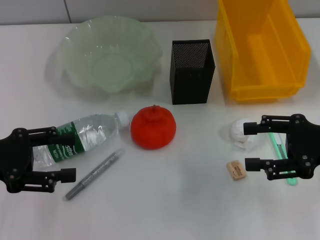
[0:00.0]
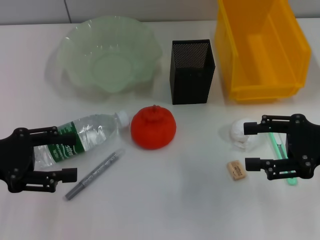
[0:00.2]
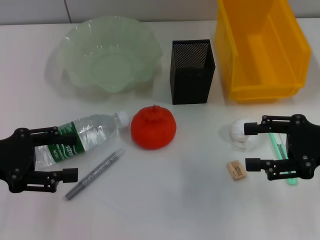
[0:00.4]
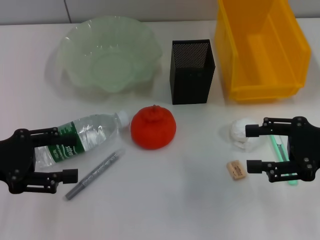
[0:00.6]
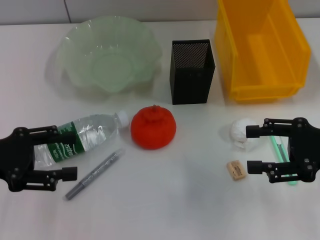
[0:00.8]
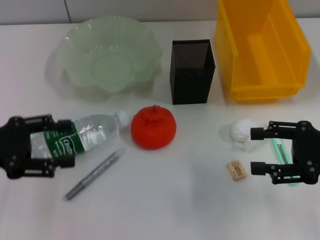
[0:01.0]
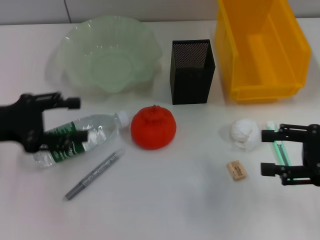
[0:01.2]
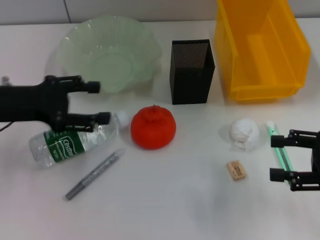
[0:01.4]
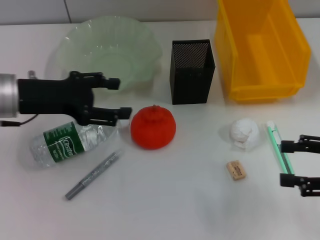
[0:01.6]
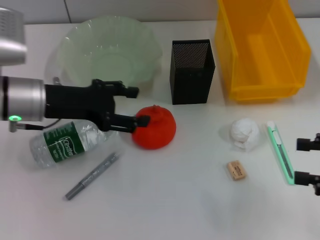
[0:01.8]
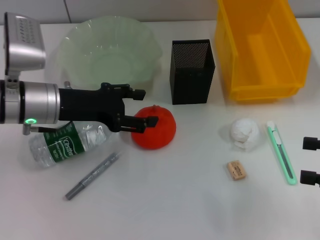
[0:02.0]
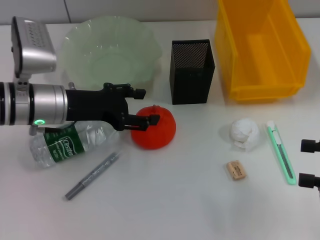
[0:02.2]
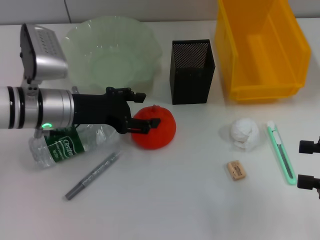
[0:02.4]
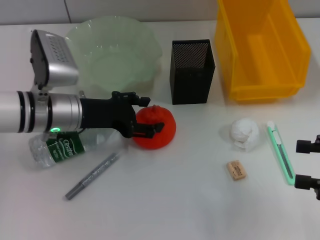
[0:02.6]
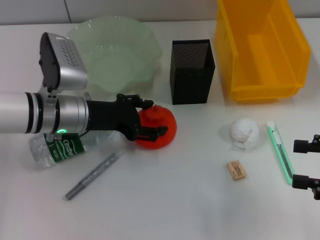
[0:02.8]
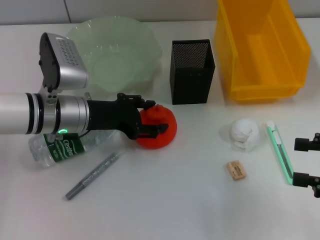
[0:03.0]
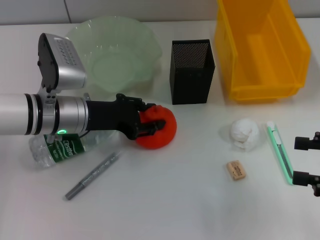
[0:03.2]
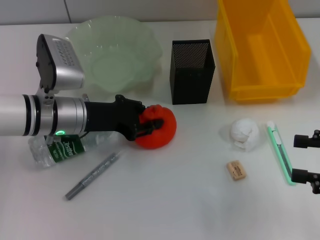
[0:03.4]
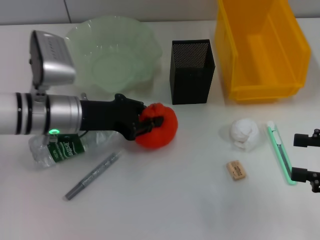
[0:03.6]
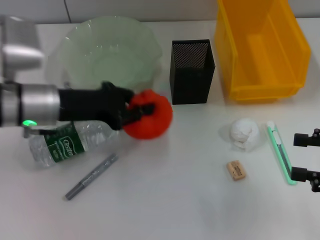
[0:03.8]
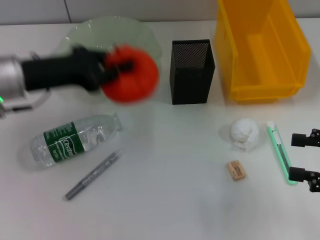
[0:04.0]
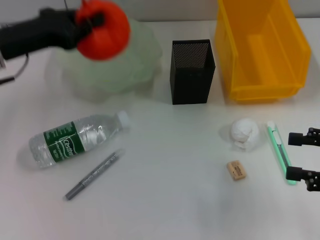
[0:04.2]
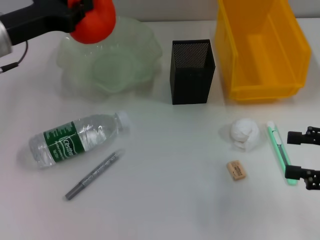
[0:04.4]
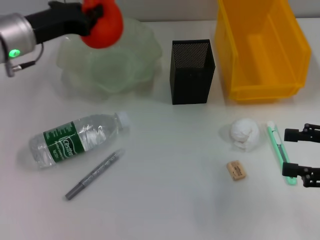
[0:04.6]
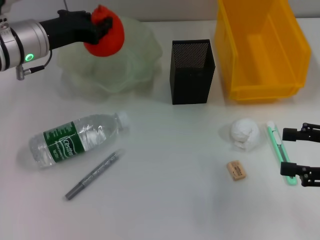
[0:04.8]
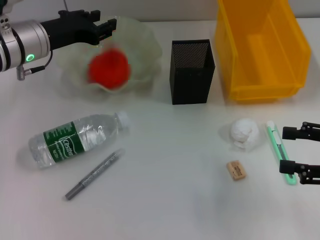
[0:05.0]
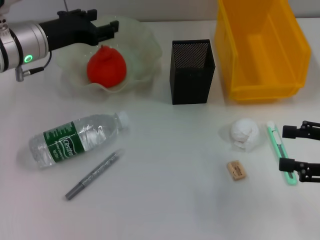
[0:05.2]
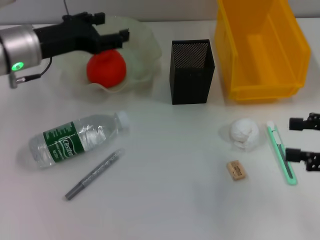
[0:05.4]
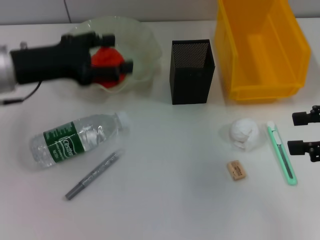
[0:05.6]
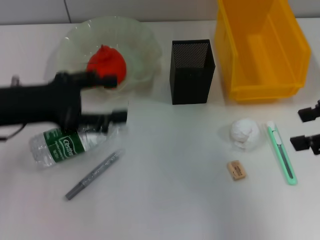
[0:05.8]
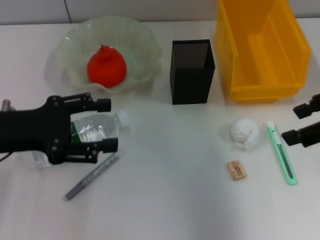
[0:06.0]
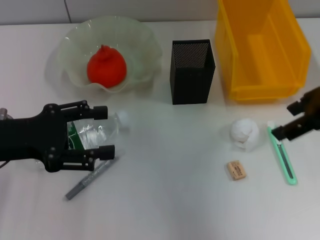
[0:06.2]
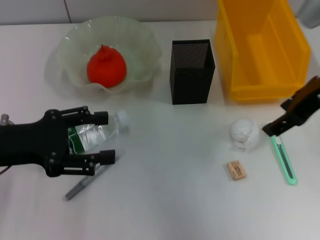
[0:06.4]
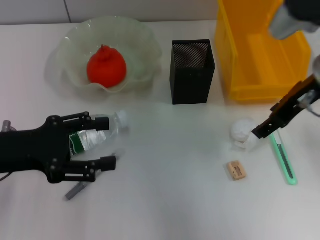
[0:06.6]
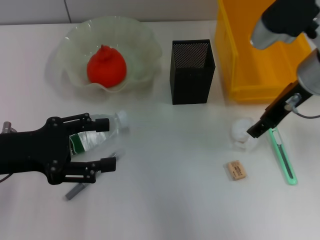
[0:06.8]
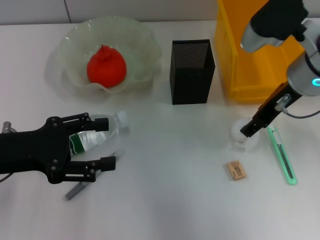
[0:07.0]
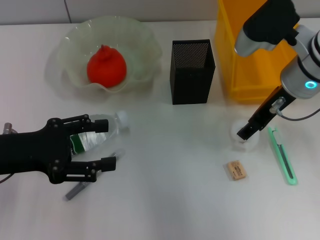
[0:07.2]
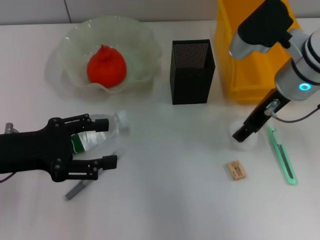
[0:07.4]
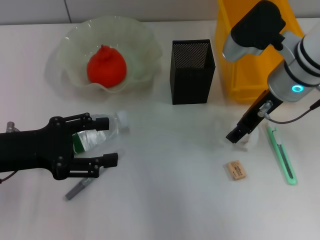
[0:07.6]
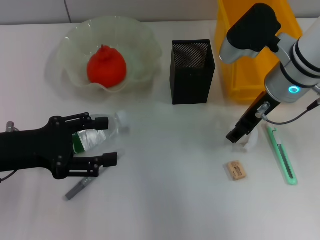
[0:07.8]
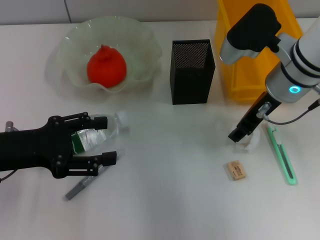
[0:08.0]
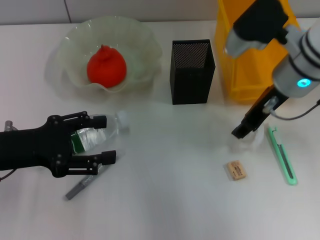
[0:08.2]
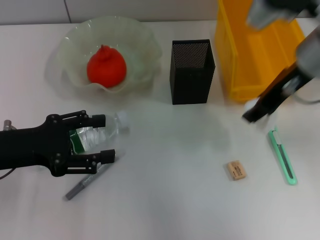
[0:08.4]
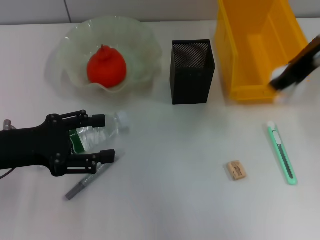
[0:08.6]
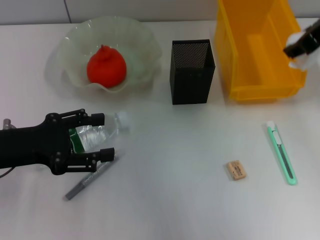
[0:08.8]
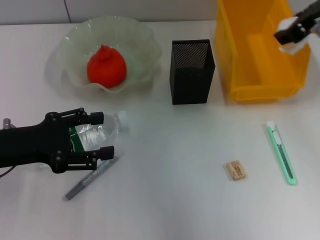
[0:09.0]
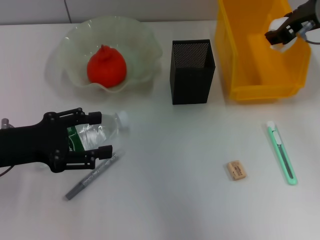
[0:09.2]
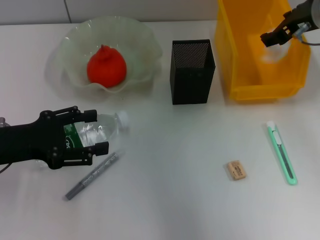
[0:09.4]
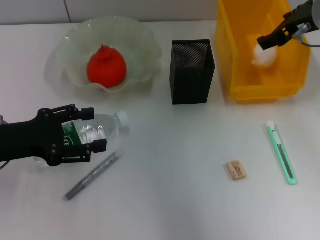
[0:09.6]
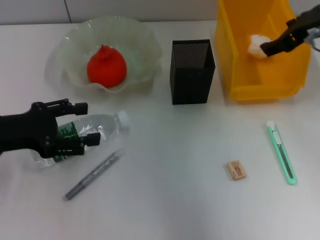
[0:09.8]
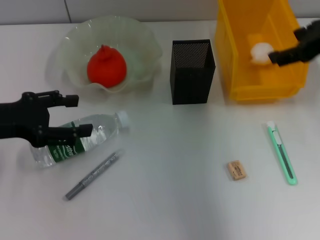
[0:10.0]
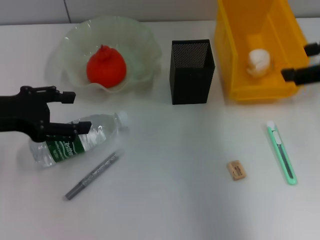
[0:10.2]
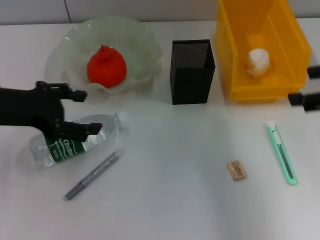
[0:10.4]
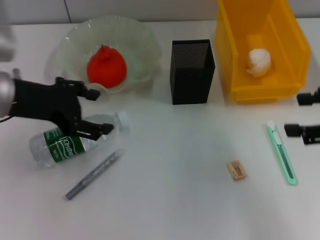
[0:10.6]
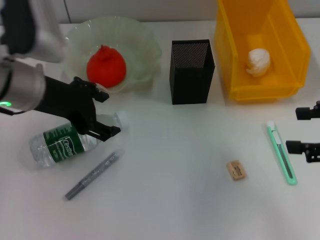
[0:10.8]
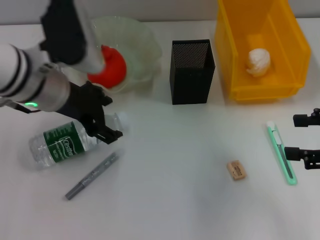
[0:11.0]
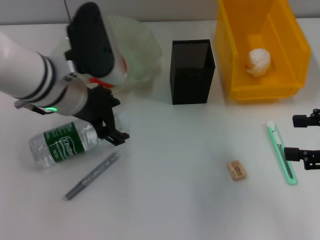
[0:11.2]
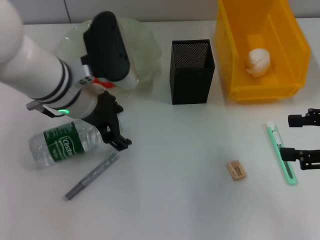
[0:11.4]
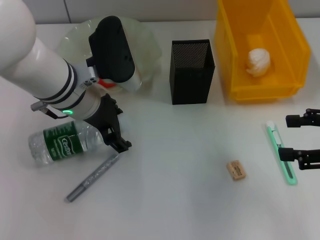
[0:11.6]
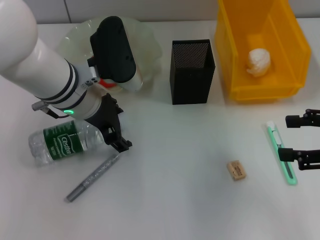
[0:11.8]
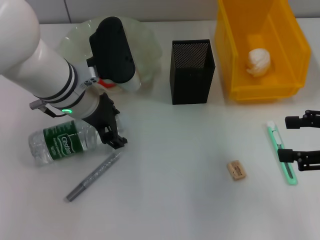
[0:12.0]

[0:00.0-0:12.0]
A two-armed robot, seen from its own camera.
Step, 0.0 to 3.4 s: Grab the orange with the left hand.
Step, 3.6 to 5.2 s: Place the orange into the fruit bowl with the left hand.
Step, 5.4 to 7.8 s: Grab the paper ball with the right hand.
Step, 8.0 to 9.8 s: Place the paper ball into the trash can with the right hand.
0.0 to 1.6 s: The right gripper ends up about 5 cm from where it was. The left gripper is displaced forward and to the right by approximately 10 cm.
1.6 to 3.0 s: The left gripper heads to the right and downward, covering about 10 cm.
3.0 to 4.4 s: The left gripper is displaced upward and to the left by approximately 10 cm, and closes.
4.4 to 6.0 s: The left gripper goes some 10 cm backward, and opens up; the right gripper is displaced upward, to the left and forward by roughly 15 cm.
6.0 to 7.6 s: The right gripper travels to the left, downward and forward by about 15 cm.
7.6 to 9.0 s: The right gripper goes approximately 10 cm upward and to the right.
9.0 to 10.4 s: The left gripper travels upward by about 5 cm. The right gripper heads backward and to the right, covering some 15 cm, and opens its fingers.
10.4 to 12.0 s: The right gripper is displaced downward by roughly 5 cm, while the left gripper heads to the right and forward, covering roughly 15 cm.

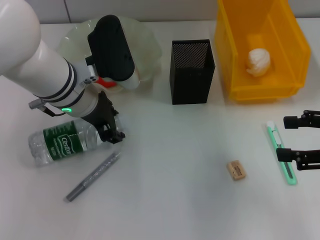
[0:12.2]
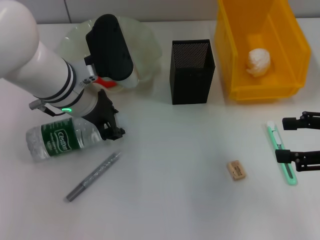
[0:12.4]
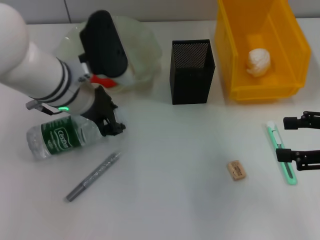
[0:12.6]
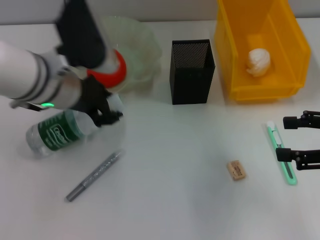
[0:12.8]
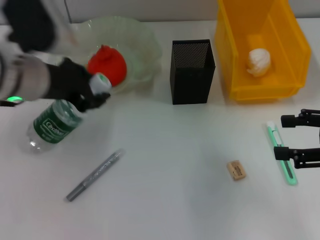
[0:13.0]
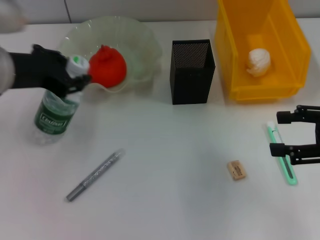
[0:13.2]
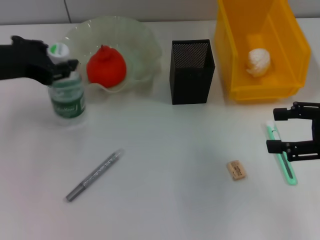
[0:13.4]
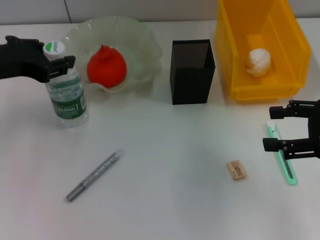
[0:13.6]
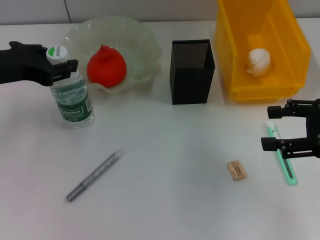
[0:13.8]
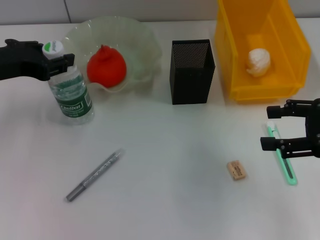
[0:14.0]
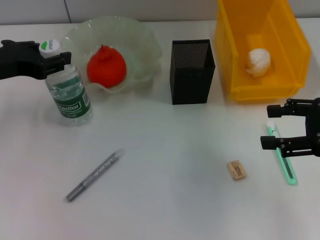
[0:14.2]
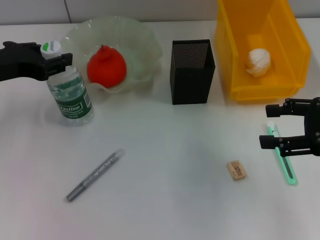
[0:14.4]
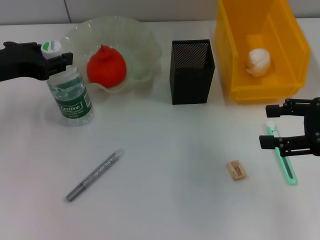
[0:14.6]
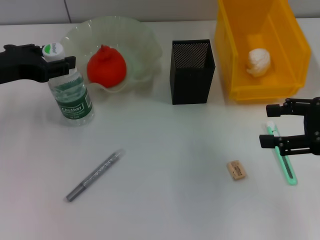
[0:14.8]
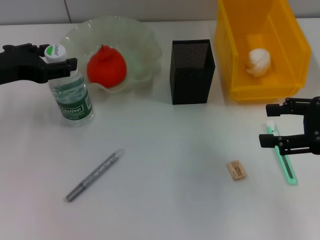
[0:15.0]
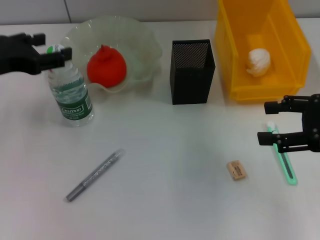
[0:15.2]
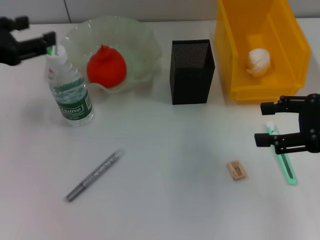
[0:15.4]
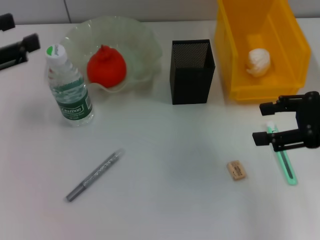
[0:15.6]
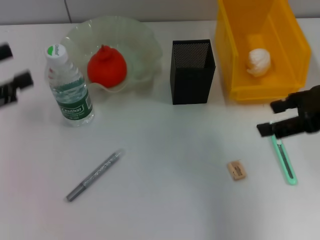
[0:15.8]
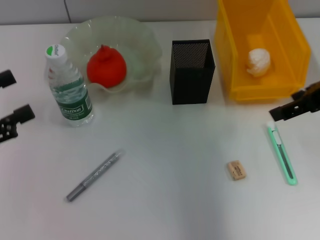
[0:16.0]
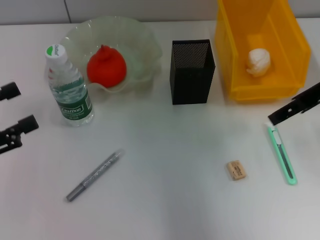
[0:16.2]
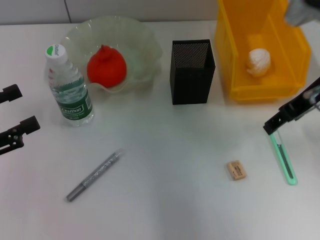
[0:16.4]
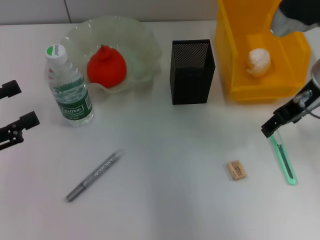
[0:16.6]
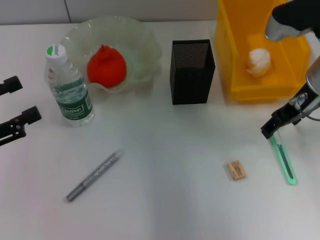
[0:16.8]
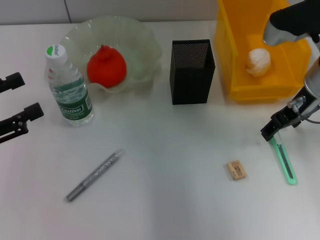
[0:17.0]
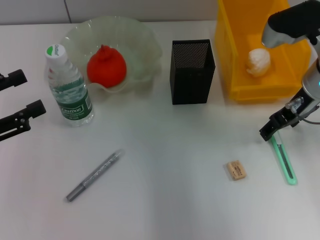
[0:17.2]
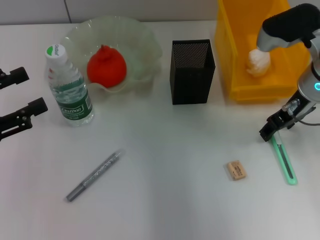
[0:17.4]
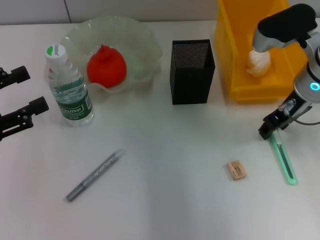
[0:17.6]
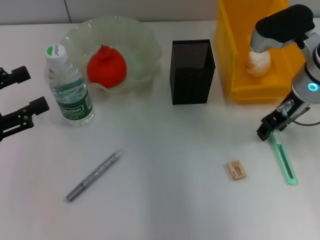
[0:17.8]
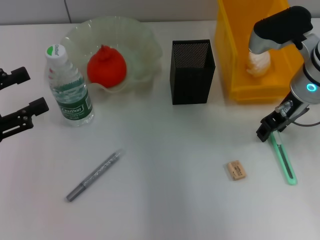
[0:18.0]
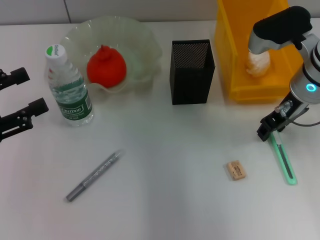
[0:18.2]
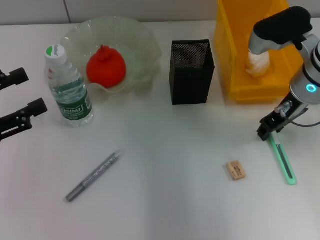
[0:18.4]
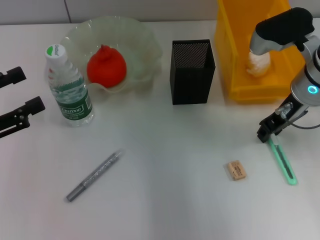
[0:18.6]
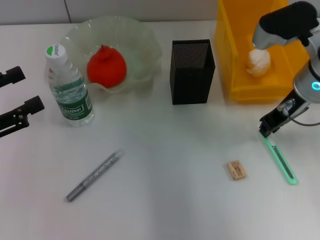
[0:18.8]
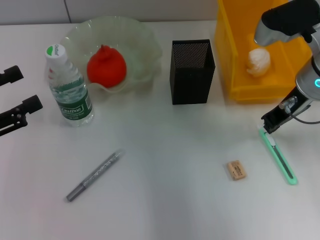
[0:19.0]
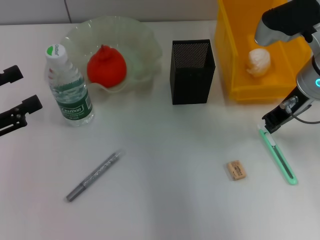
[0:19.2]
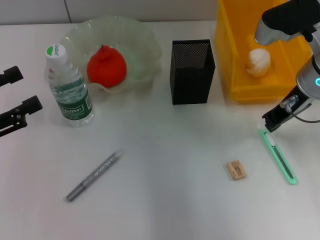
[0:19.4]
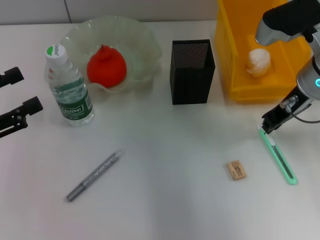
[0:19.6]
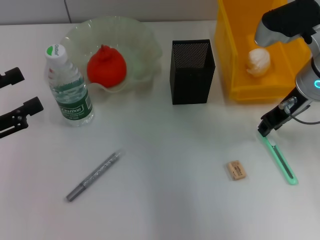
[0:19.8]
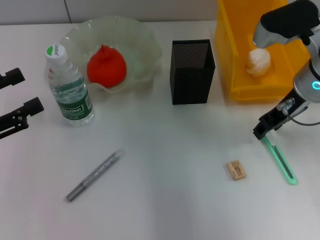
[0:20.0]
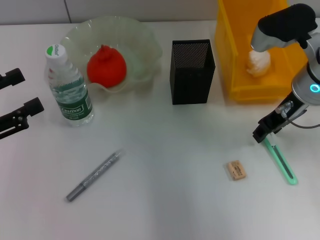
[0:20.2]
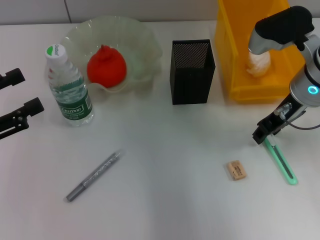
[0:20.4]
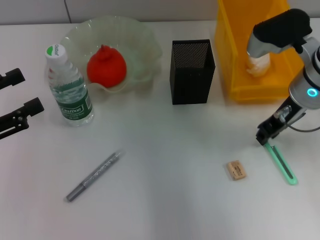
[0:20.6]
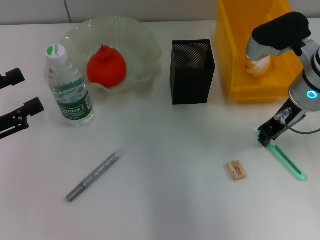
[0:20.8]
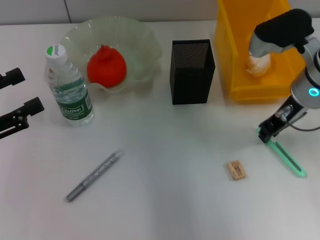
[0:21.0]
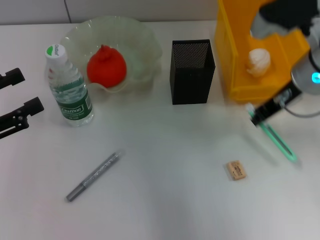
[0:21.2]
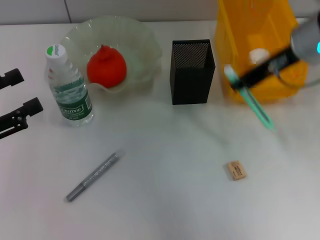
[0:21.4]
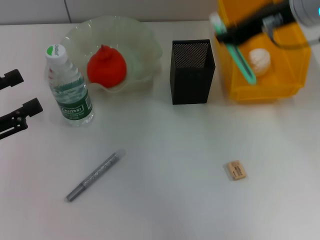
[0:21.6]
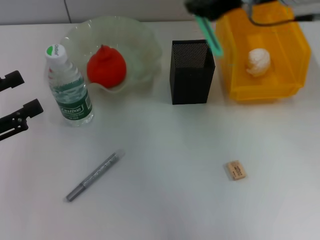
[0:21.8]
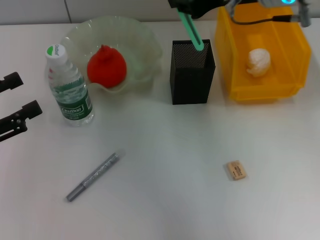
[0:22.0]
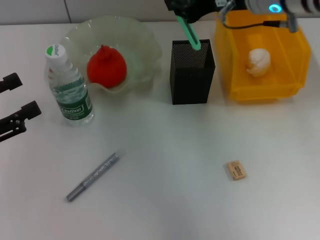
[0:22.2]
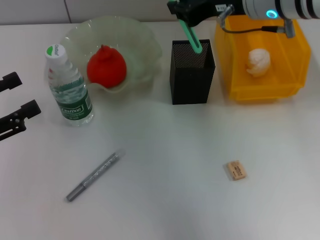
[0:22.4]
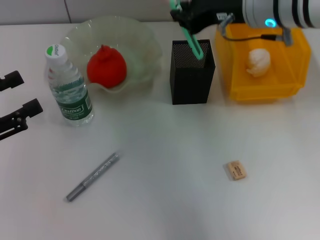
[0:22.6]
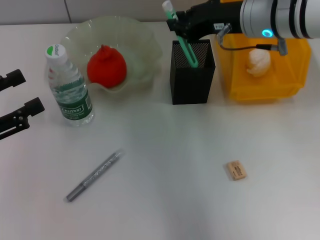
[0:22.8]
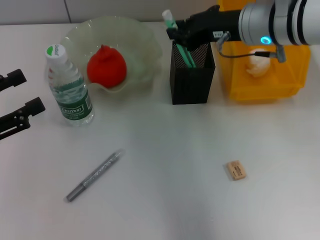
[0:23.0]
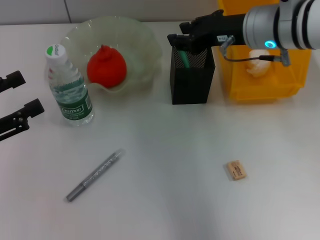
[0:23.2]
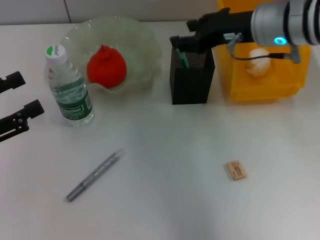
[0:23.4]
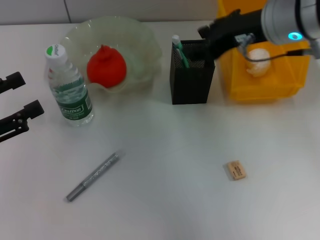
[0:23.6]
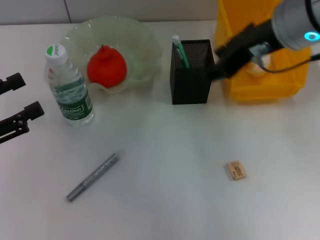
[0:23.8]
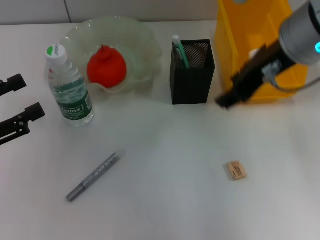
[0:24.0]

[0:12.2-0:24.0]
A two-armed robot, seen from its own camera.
Step, 12.8 to 15.0 s: Place the water bottle on the table with the left hand.
Step, 15.2 to 20.4 s: Grab the blue utility knife with the right hand.
Step, 20.6 to 23.6 s: Place the blue utility knife into the pen holder with the right hand.
12.2 to 13.6 s: The left gripper shifts some 15 cm to the left and upward, and closes.
13.6 to 15.2 s: The left gripper opens up.
15.2 to 16.6 s: The right gripper goes roughly 15 cm forward and to the left, while the left gripper moves backward, to the left and downward, some 15 cm.
16.6 to 18.2 s: The grippers make only small movements.
18.2 to 19.6 s: The right gripper closes.
19.6 to 21.0 s: The right gripper opens, then closes once more.
21.0 to 22.6 s: The right gripper is displaced upward and to the left by roughly 10 cm.
22.6 to 24.0 s: The right gripper goes some 5 cm backward, and opens.
